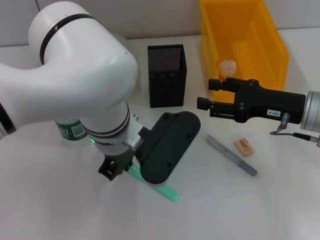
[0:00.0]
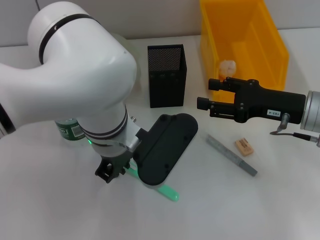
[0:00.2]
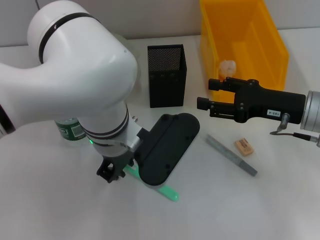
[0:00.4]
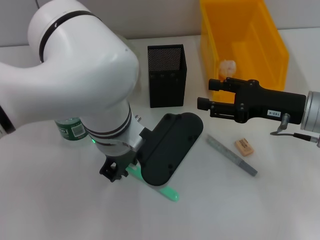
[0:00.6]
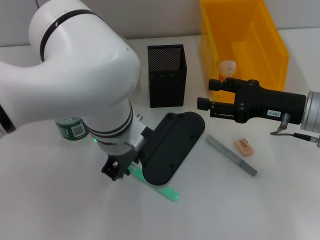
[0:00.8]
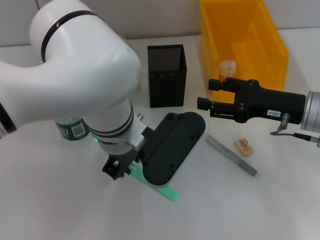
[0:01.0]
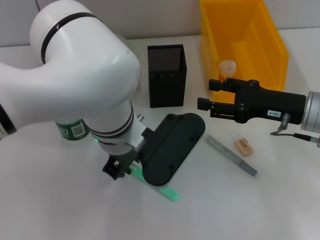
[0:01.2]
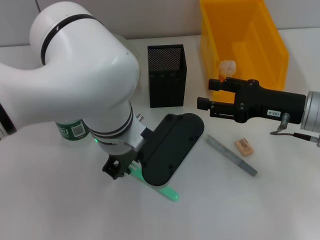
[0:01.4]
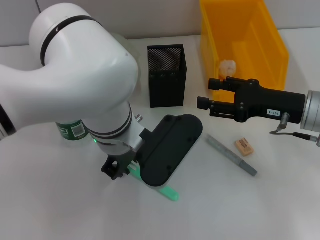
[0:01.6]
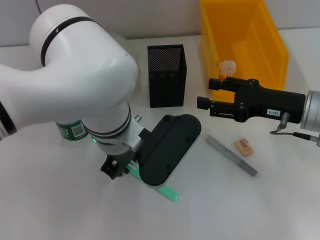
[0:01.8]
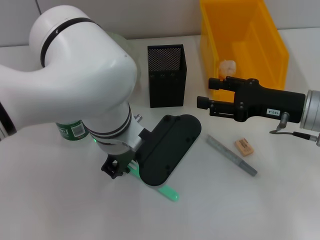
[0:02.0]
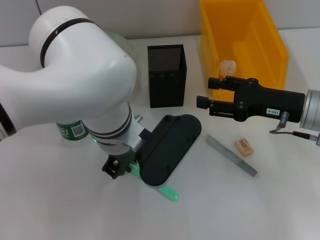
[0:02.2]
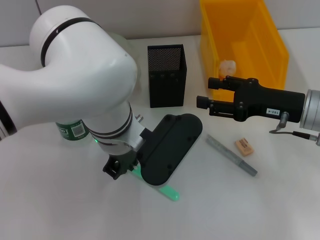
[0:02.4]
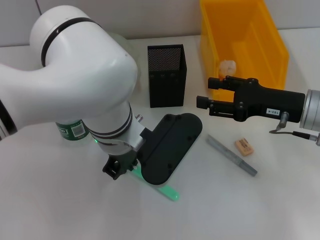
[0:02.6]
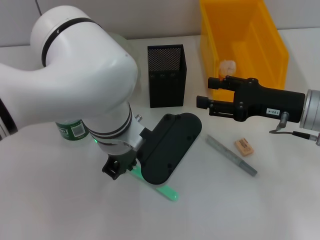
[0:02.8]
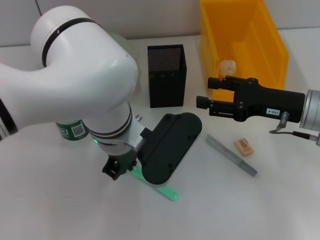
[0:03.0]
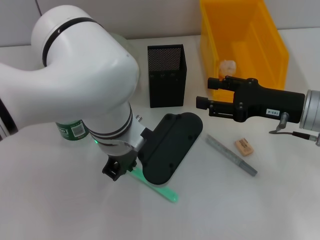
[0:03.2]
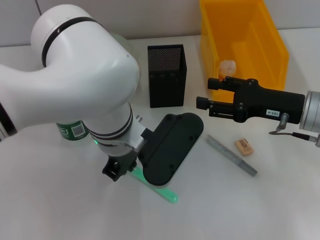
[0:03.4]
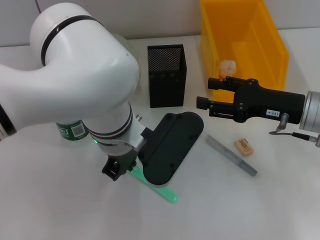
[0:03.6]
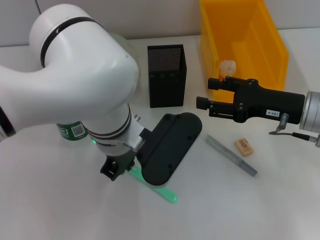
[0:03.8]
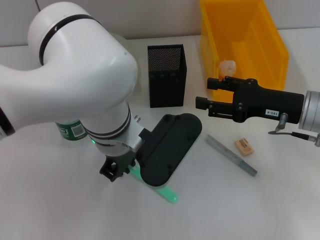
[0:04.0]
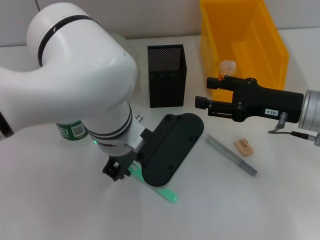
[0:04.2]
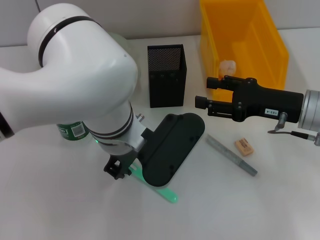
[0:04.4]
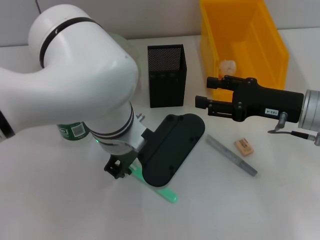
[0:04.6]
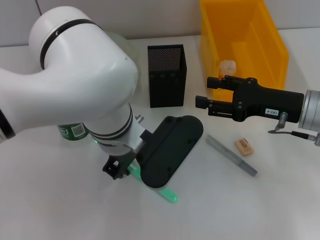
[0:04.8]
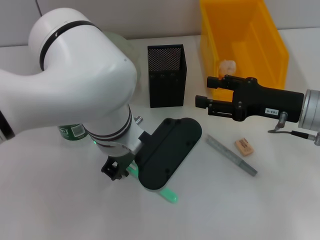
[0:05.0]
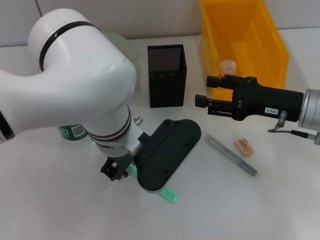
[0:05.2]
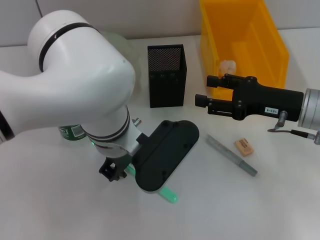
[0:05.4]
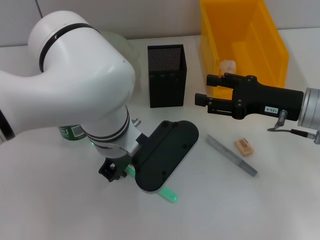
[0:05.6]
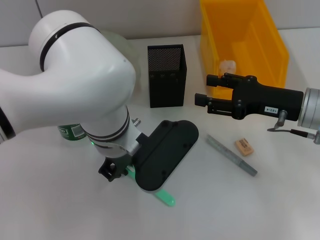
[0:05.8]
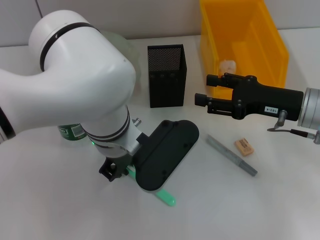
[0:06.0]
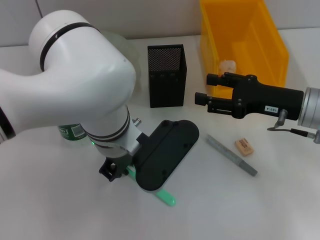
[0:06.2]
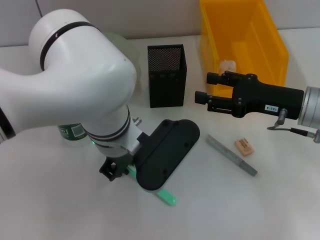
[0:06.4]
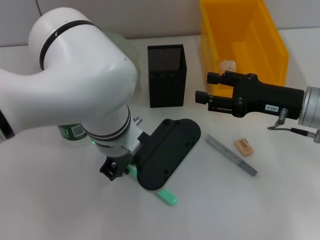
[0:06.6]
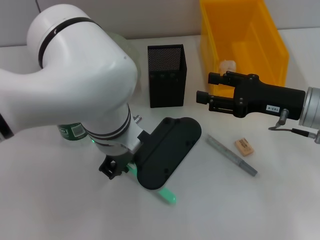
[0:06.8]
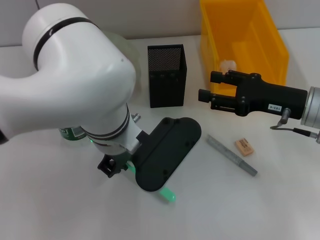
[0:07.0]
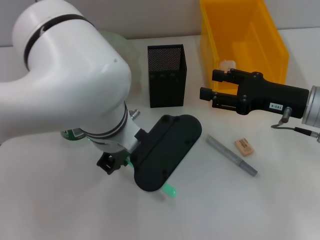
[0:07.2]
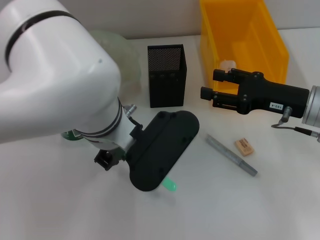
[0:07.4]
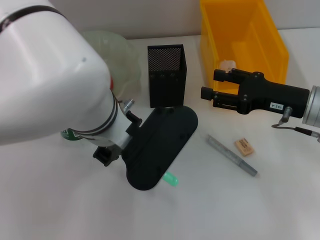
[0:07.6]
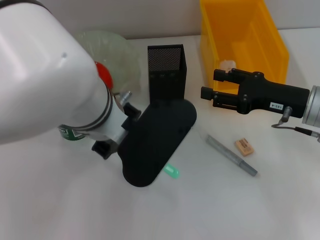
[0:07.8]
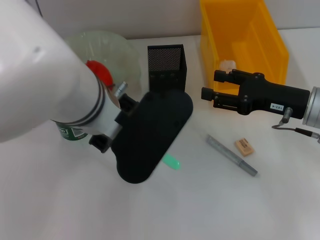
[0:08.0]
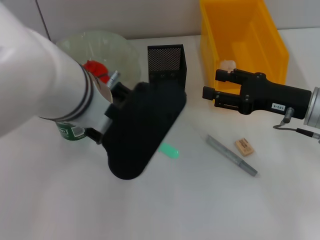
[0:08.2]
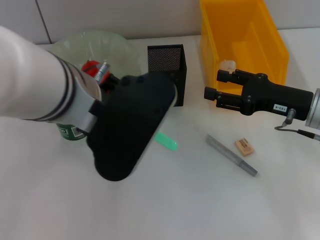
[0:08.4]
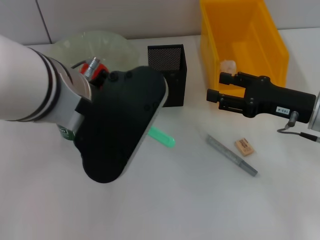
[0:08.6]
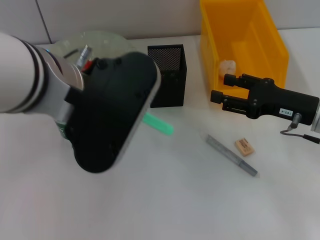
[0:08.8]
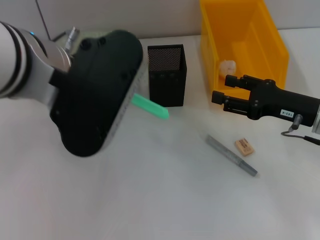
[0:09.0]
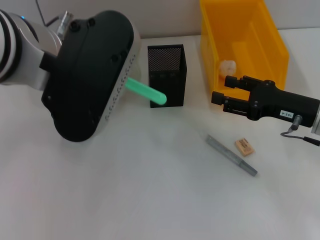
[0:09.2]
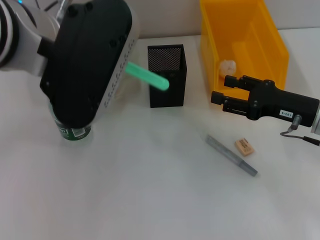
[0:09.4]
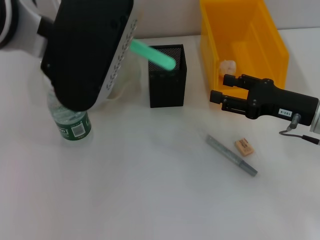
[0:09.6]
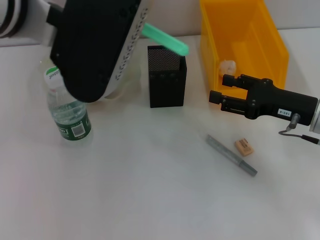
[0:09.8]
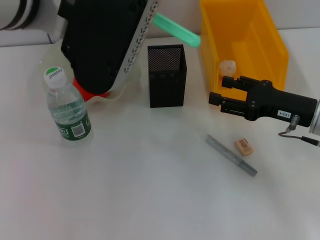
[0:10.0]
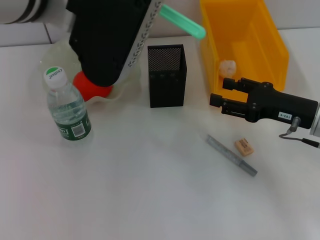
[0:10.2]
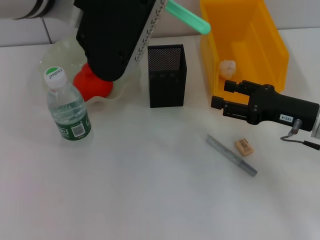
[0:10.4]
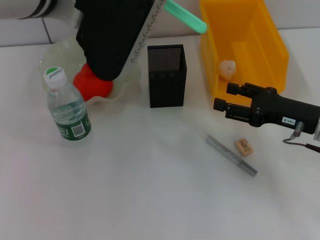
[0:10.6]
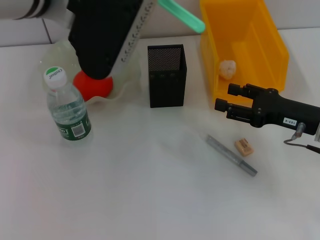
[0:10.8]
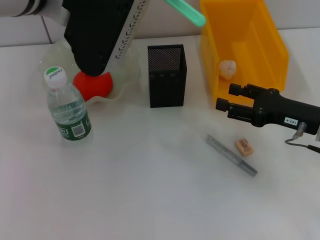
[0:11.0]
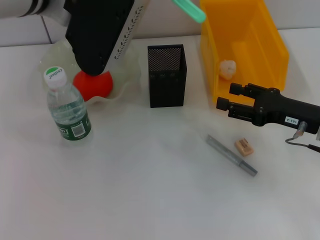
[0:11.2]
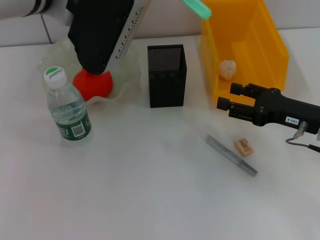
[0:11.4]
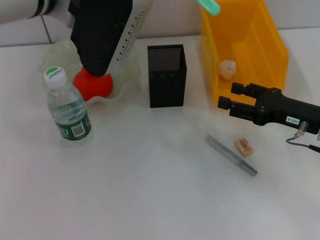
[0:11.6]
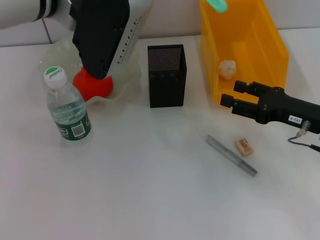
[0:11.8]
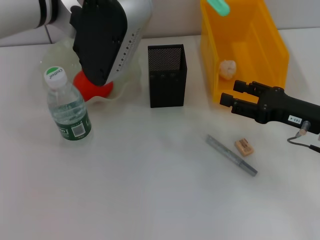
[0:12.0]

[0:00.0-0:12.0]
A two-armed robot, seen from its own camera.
Step, 0:00.0 to 0:06.2: Grab the blue utility knife with the left hand.
0:00.0 to 0:06.0: Neither gripper changes place.
0:06.0 to 0:07.6: The left gripper moves approximately 5 cm.
0:07.6 to 0:09.0: The left gripper travels upward and to the left by some 10 cm.
0:09.0 to 0:10.4: The left gripper goes approximately 5 cm forward.
0:10.4 to 0:12.0: The left gripper changes place by roughly 5 cm.

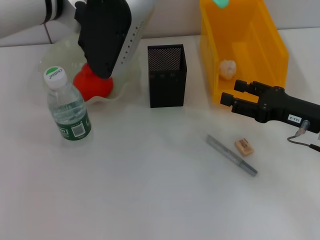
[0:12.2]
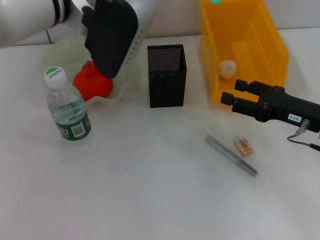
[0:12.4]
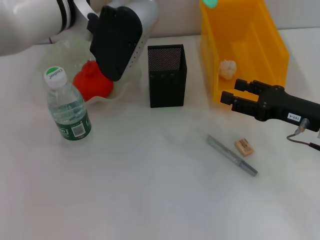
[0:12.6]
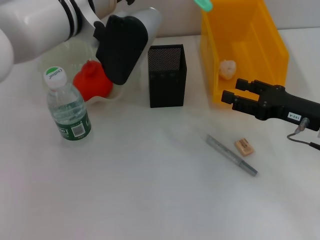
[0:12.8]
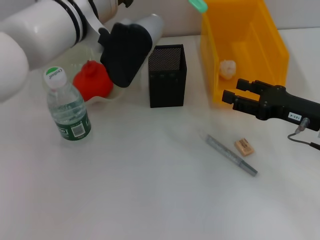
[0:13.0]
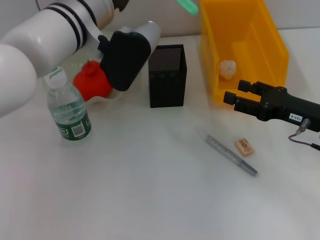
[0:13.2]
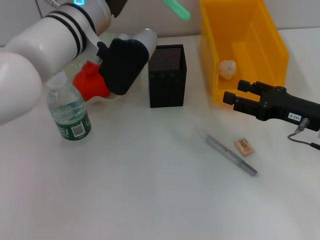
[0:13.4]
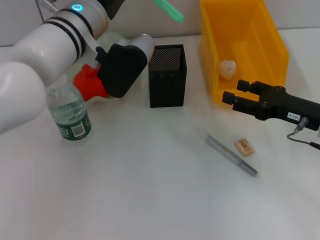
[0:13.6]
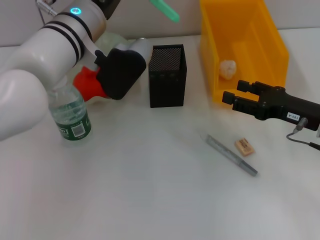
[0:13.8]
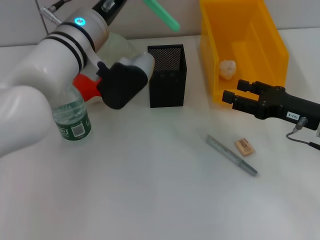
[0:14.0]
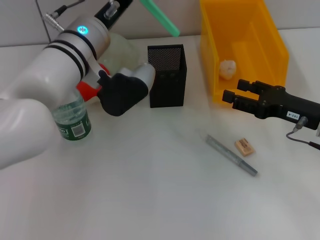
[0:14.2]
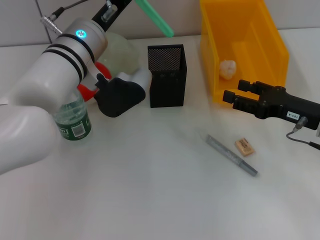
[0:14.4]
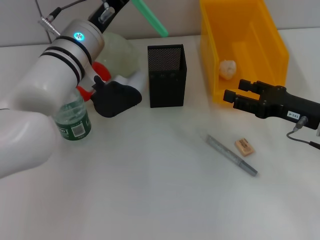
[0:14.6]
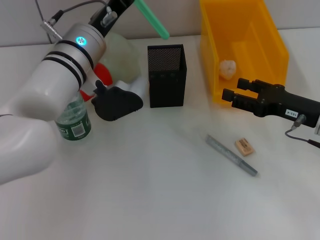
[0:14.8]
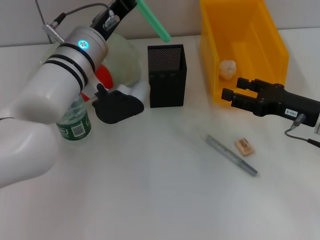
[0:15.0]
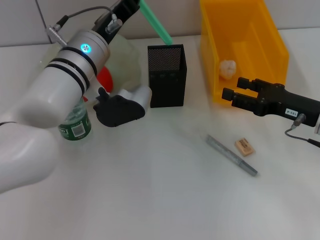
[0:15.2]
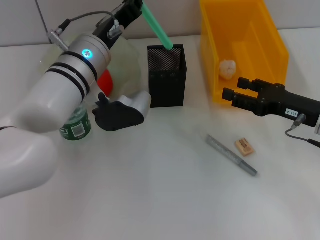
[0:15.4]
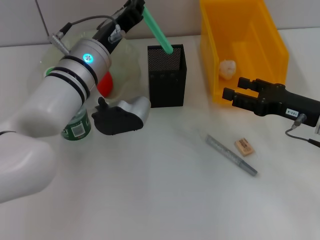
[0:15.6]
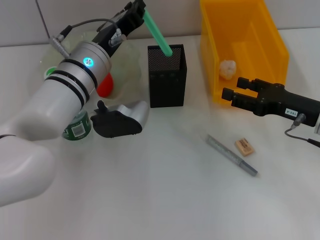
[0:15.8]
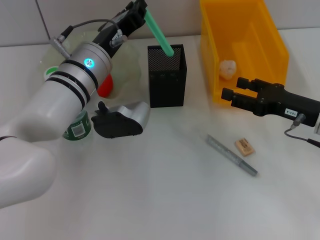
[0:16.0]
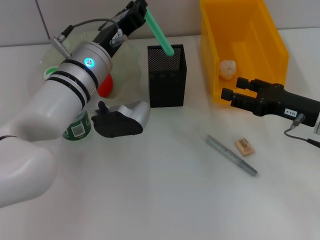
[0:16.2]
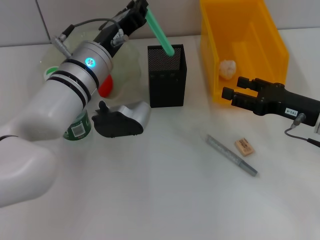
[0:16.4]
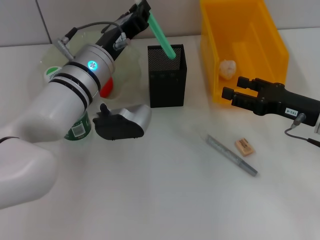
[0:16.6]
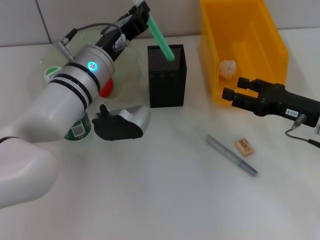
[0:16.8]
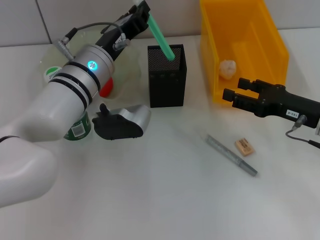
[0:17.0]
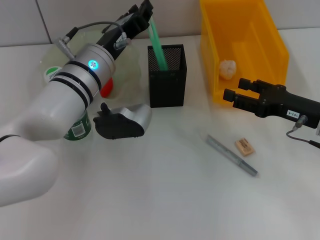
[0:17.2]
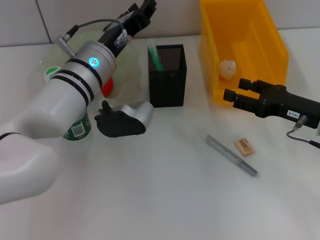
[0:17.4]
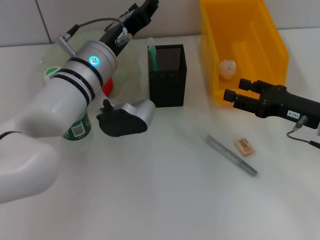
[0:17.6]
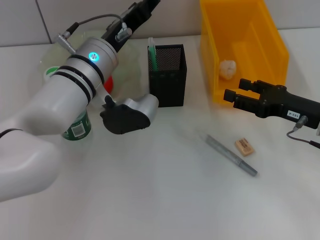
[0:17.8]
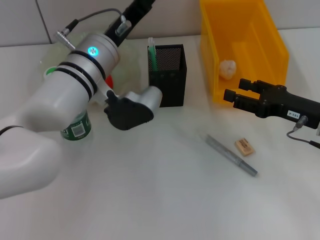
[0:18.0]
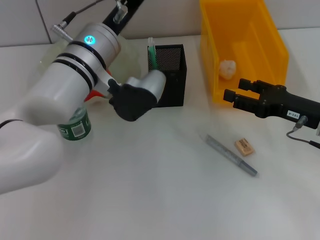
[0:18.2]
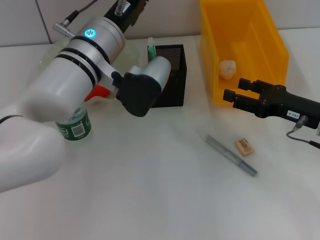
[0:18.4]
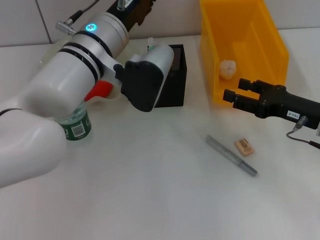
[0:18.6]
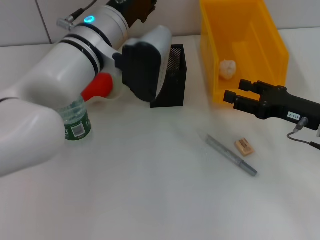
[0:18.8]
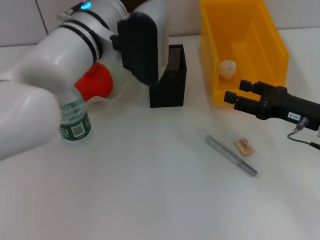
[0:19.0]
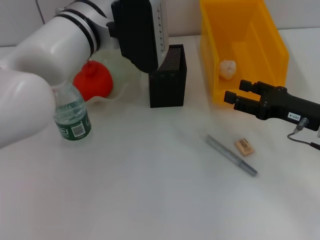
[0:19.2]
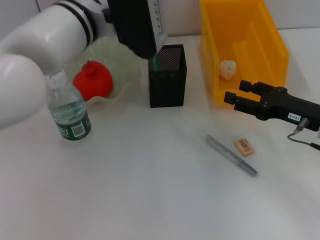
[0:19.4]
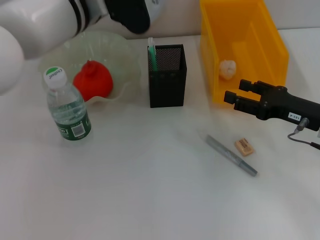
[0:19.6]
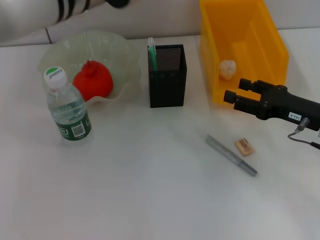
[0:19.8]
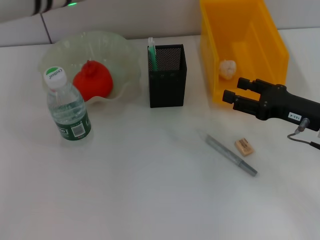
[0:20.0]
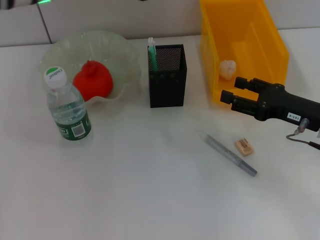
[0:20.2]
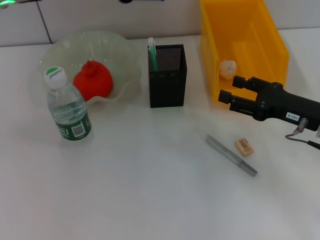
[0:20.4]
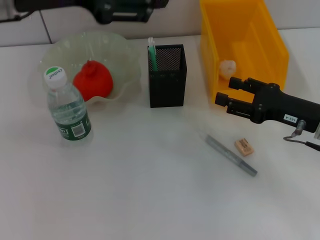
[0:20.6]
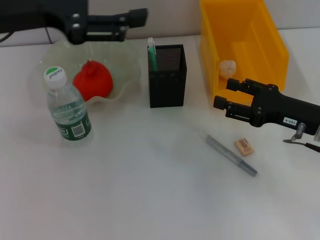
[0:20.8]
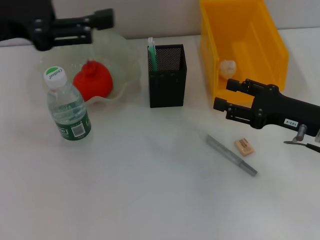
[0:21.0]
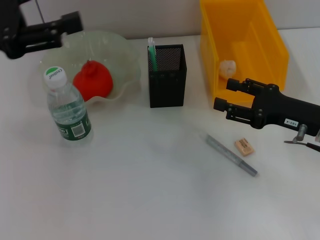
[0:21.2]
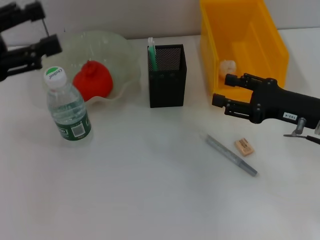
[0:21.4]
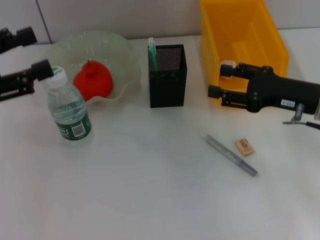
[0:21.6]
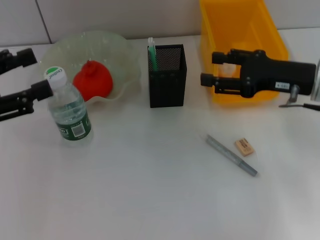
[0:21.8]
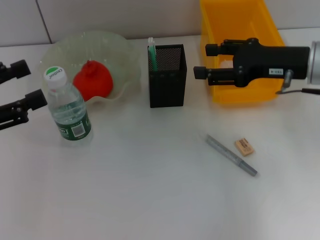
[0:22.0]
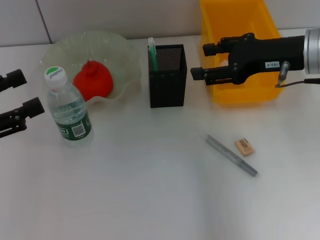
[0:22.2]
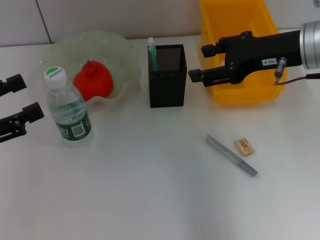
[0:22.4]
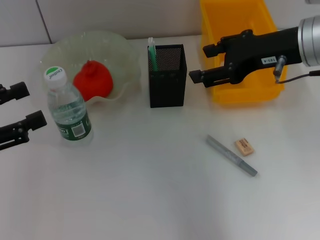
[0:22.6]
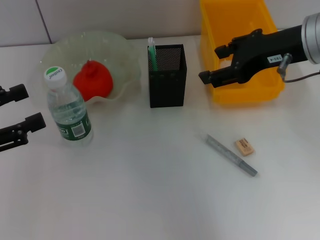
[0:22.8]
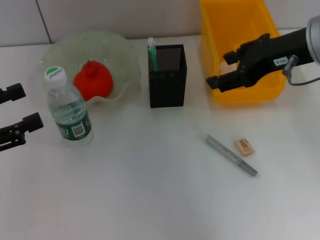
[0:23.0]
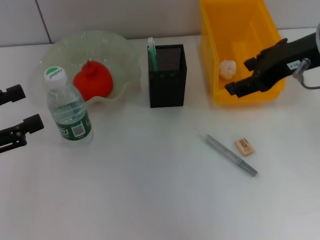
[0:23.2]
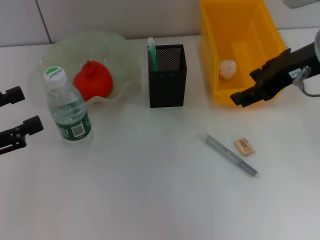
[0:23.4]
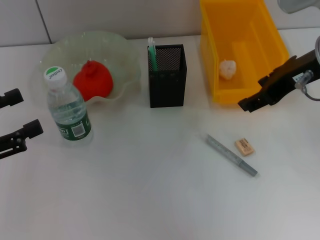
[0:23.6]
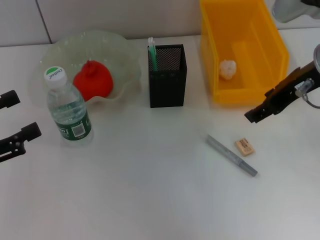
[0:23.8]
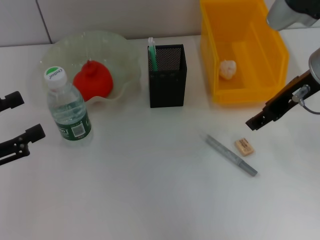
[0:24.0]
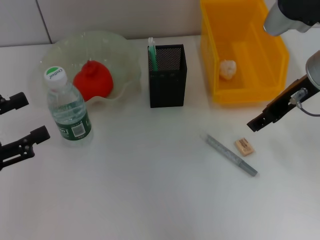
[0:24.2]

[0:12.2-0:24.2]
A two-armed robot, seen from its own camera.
Step, 0:12.2 to 0:18.0: Place the blue utility knife into the pen holder with the left hand.
0:12.2 to 0:13.8: The left gripper is displaced downward by about 10 cm.
0:13.8 to 0:15.2: The grippers stay close to where they were, moving slightly.
0:15.2 to 0:16.6: The grippers stay close to where they were, moving slightly.
0:16.6 to 0:18.2: The left gripper opens.
0:18.2 to 0:19.8: The left gripper is displaced upward by roughly 10 cm.
0:19.8 to 0:21.2: The left gripper travels to the left by approximately 20 cm.
0:21.2 to 0:22.6: The right gripper heads upward and to the left, covering some 15 cm; the left gripper travels backward, downward and to the left by some 15 cm.
